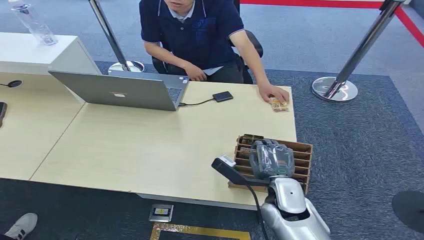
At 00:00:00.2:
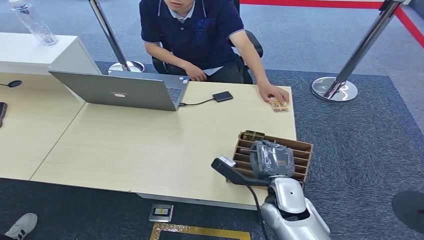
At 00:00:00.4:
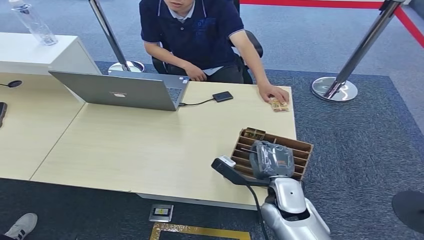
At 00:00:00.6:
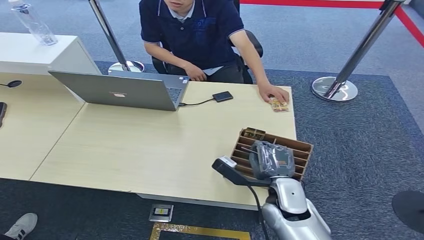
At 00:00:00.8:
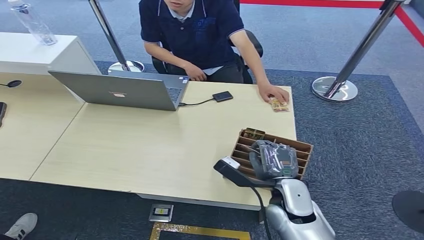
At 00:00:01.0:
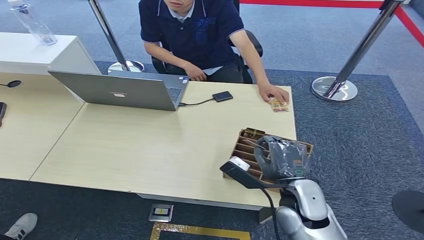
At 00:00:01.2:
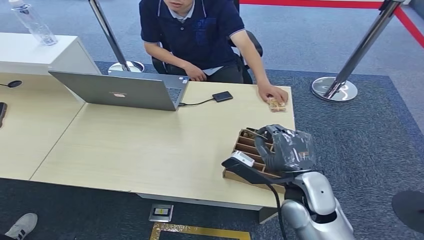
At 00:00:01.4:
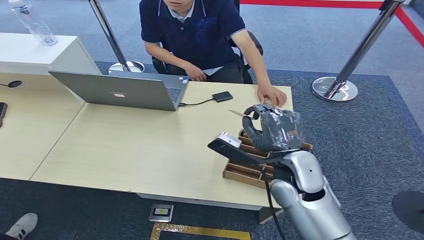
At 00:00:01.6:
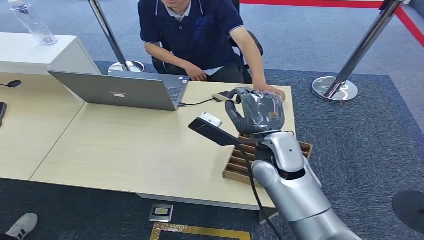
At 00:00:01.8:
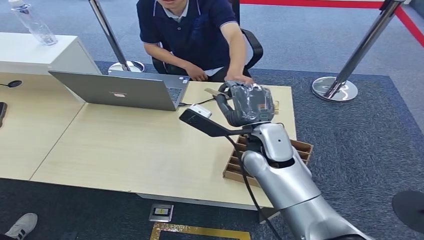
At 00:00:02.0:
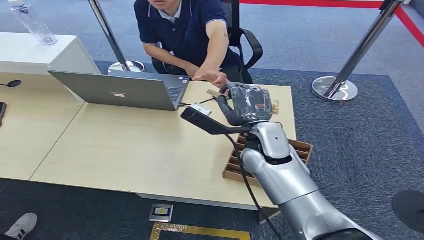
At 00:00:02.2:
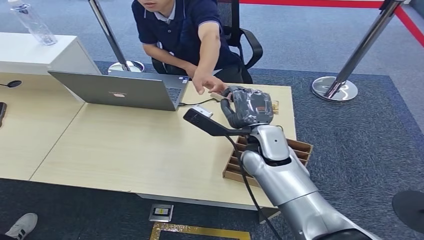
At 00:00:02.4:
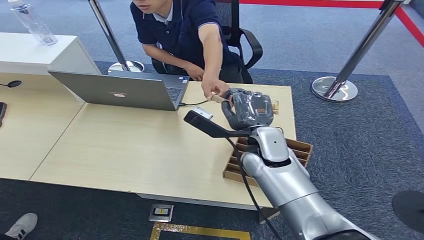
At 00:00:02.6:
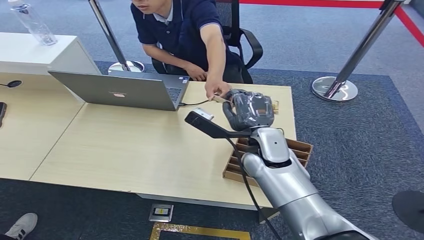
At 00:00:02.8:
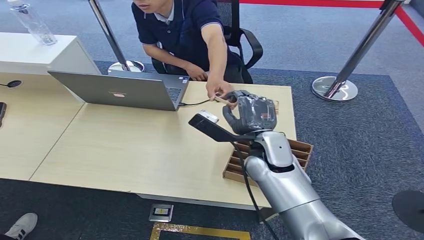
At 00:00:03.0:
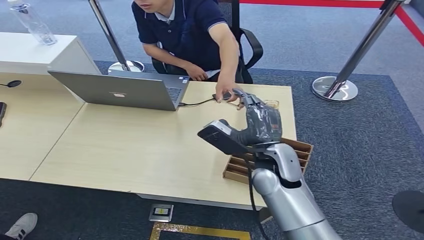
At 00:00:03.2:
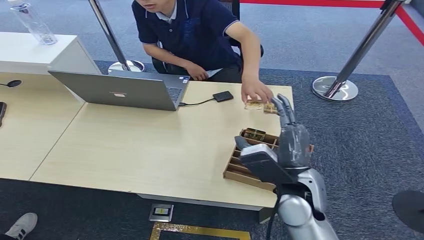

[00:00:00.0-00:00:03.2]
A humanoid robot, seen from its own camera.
Step, 00:00:00.0 to 00:00:01.6: Pick up the key card from the card box.
Step, 00:00:01.8 to 00:00:03.2: Hand the key card to the target.
00:00:01.6 to 00:00:03.2: The right hand moves backward, roughly 5 cm.
